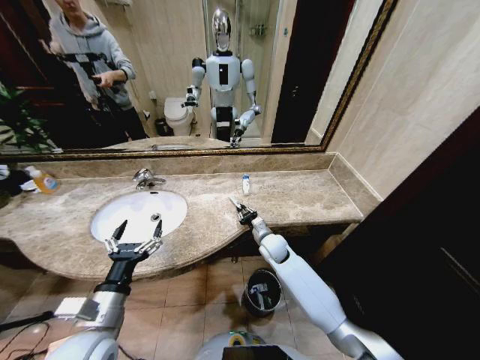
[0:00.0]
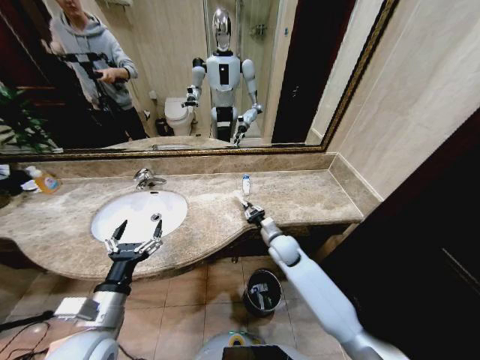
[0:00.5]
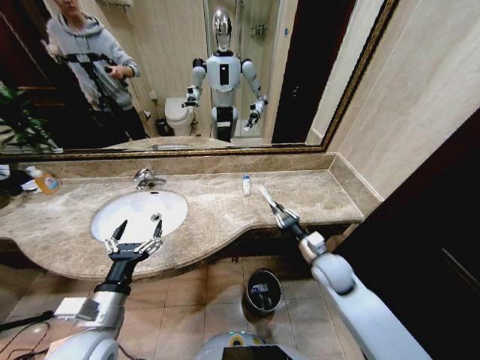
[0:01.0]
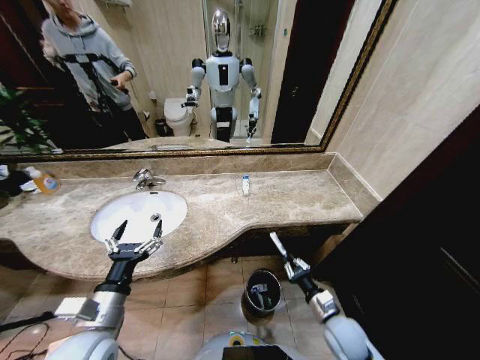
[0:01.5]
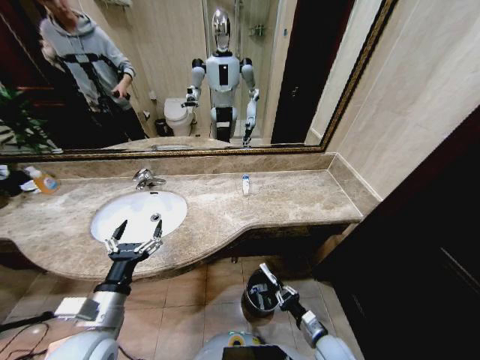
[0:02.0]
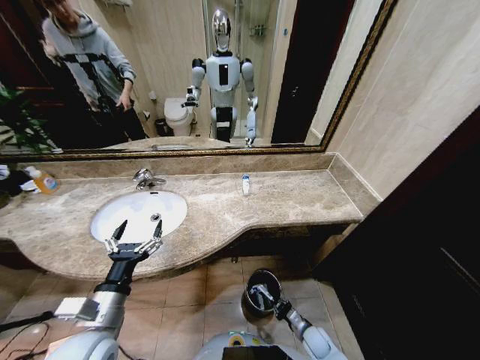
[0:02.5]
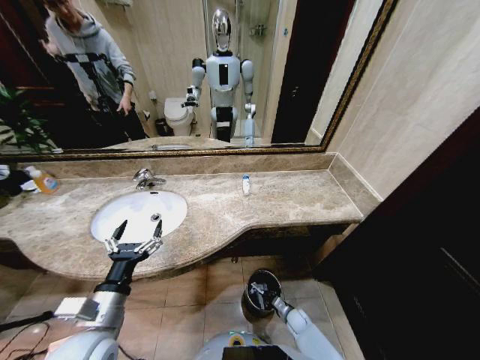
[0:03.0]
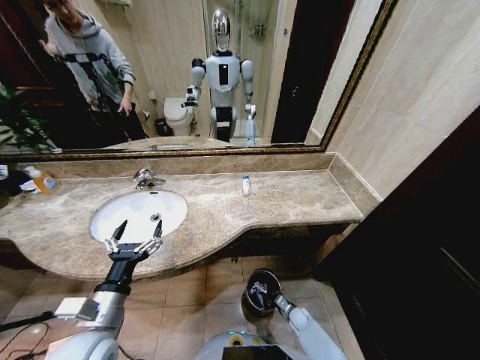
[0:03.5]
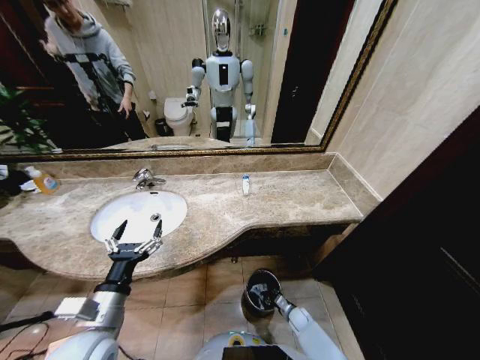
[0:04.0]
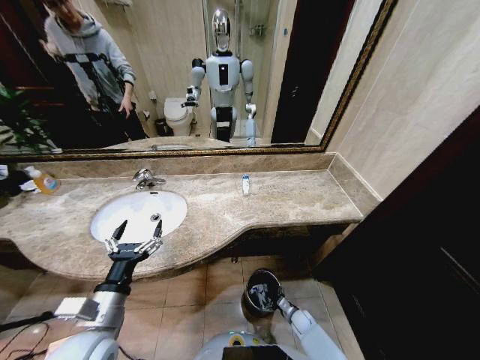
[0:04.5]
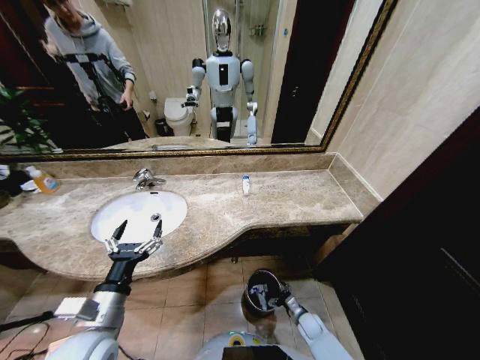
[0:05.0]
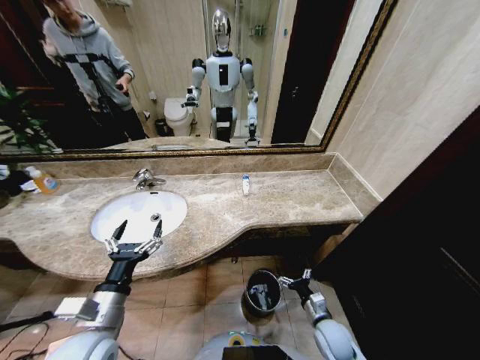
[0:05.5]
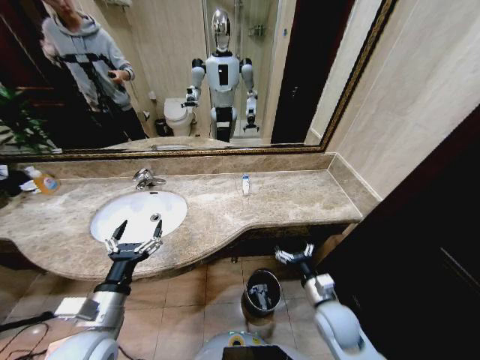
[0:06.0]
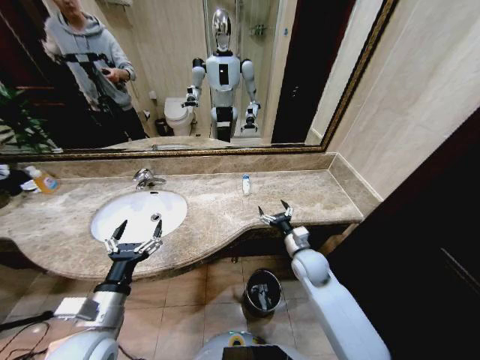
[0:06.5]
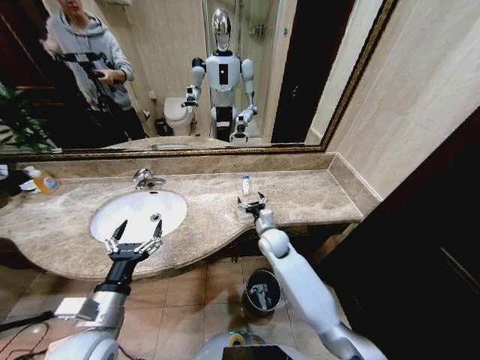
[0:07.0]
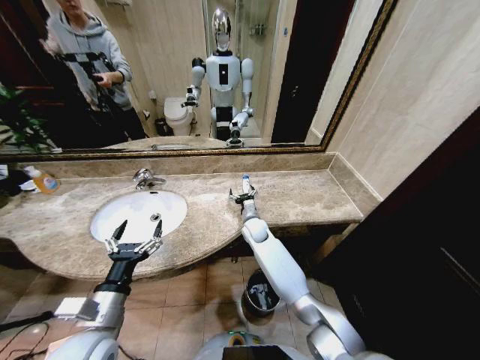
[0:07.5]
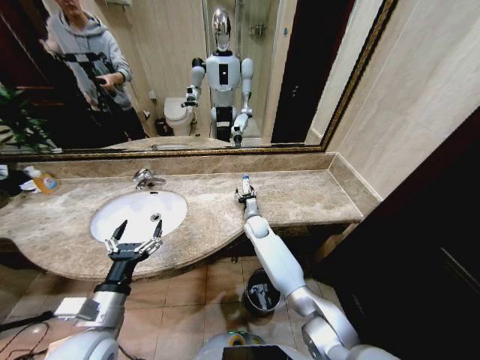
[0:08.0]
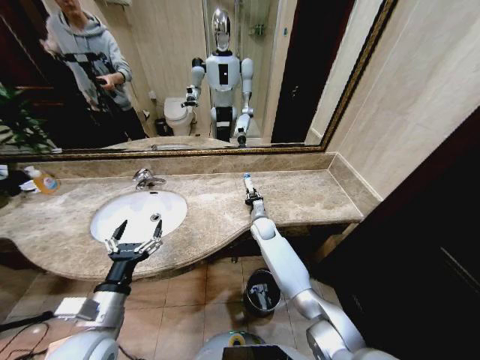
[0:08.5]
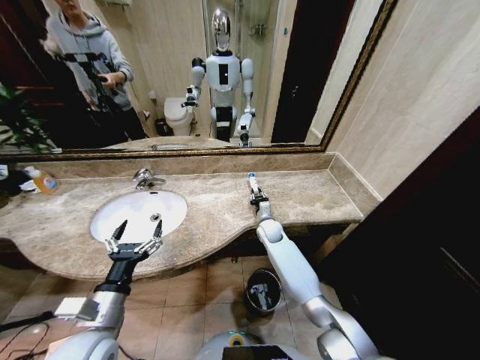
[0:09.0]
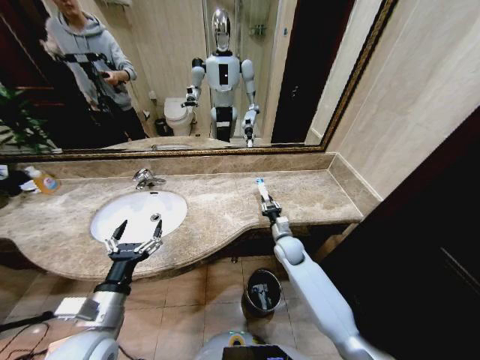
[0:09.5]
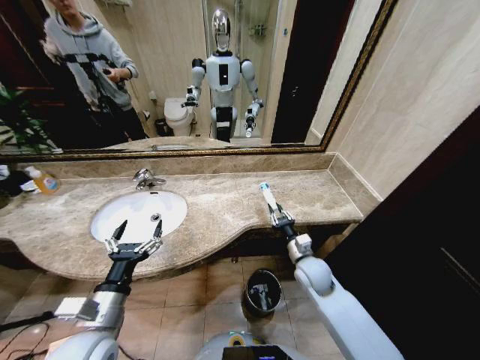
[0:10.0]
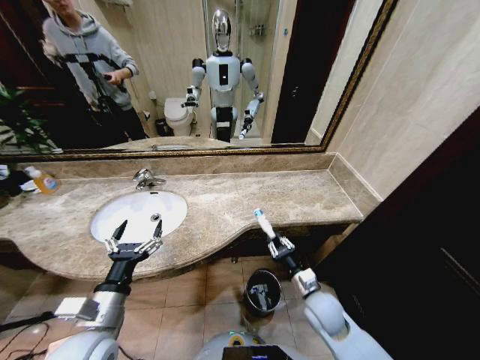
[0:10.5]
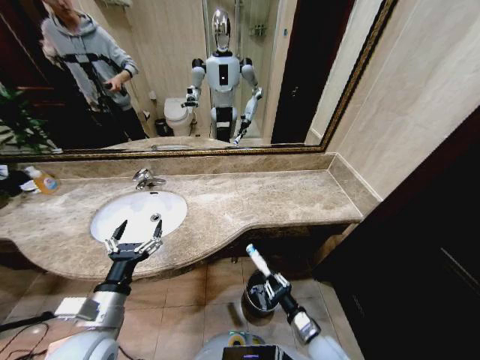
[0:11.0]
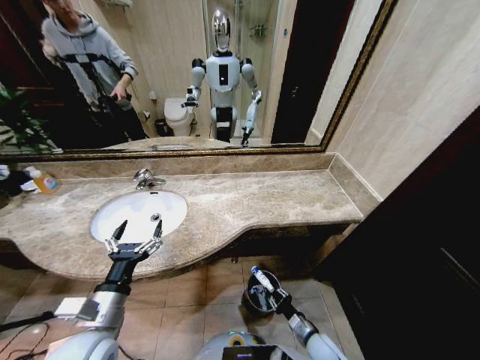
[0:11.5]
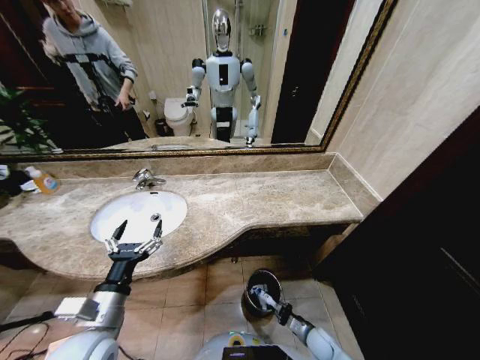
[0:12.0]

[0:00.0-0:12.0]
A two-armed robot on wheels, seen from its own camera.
Task of the whole recording: Pick up the trash from the sink and place it in the trash bin.
0:00.0 to 0:02.0: The right gripper shifts some 35 cm backward, to the right and downward.
0:02.0 to 0:04.0: The right gripper heads downward and forward, covering some 20 cm.
0:04.0 to 0:06.0: The right gripper goes about 30 cm upward, and opens its fingers.
0:06.0 to 0:08.0: The right gripper goes approximately 35 cm forward and to the left.
0:08.0 to 0:10.0: The right gripper is displaced backward and to the right by roughly 25 cm, and closes up.
0:10.0 to 0:12.0: The right gripper goes approximately 30 cm downward and backward.

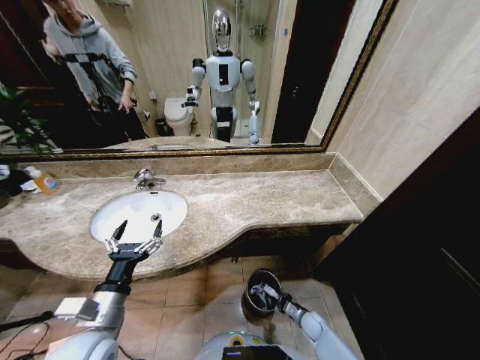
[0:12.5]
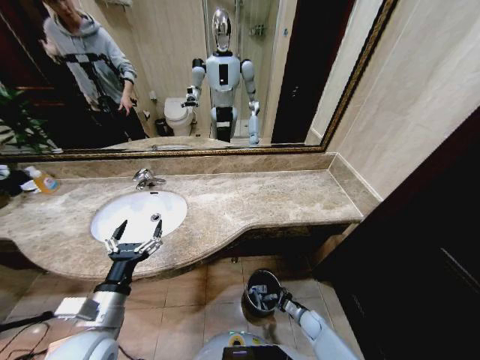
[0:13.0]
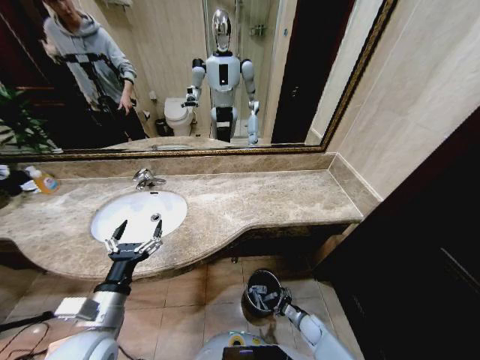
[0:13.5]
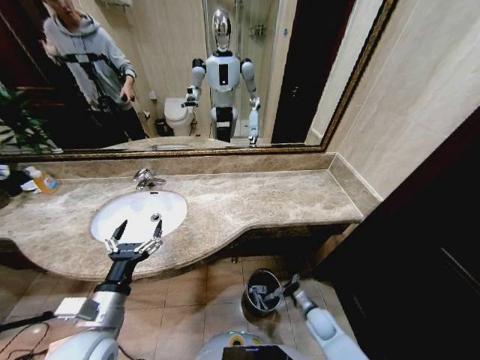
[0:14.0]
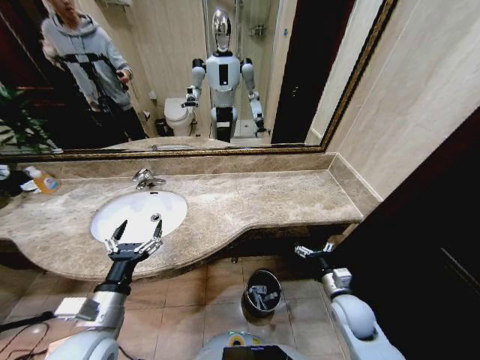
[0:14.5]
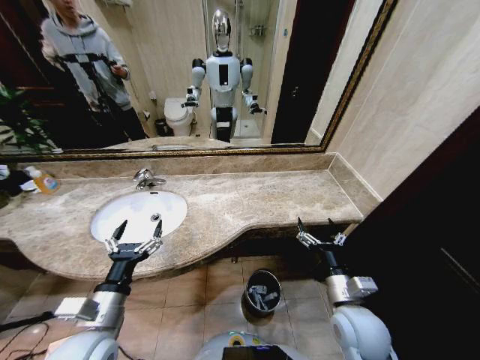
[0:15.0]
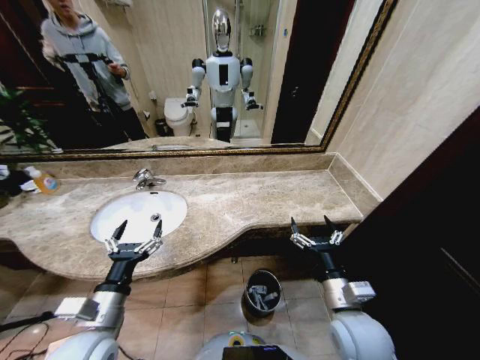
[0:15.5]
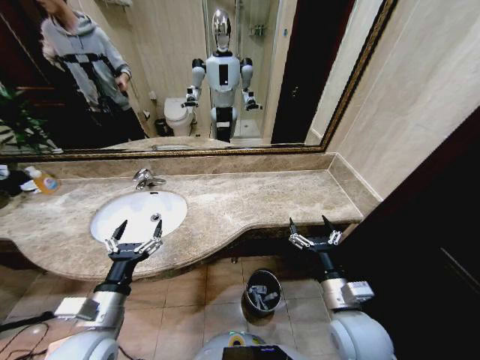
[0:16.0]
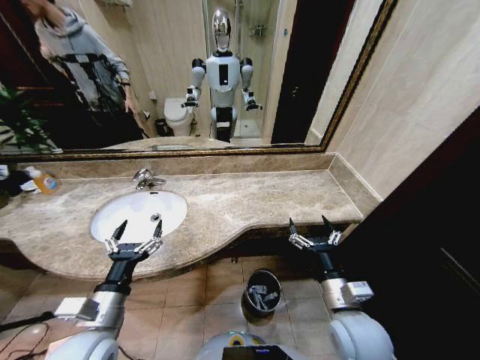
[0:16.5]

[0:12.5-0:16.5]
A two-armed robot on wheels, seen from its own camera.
Task of the whole recording: Pick up the trash from the sink and place it in the trash bin.
0:12.5 to 0:14.5: The right gripper goes approximately 25 cm upward, and opens.
0:14.5 to 0:16.5: The right gripper shifts about 15 cm upward, to the left and backward.

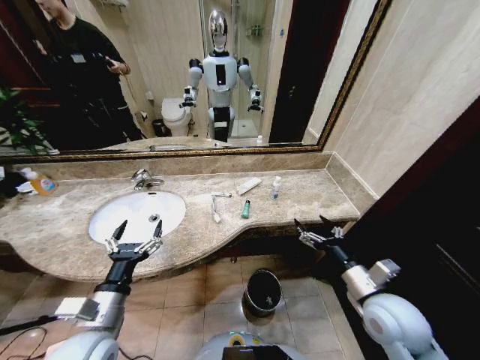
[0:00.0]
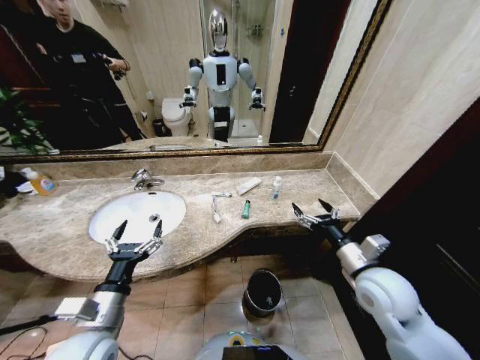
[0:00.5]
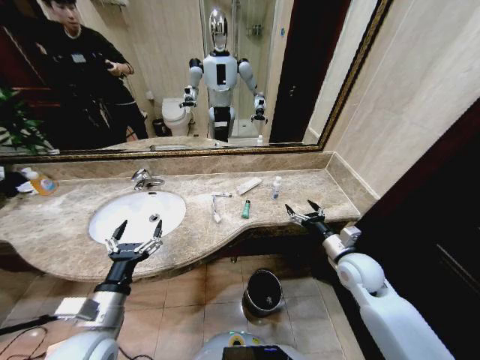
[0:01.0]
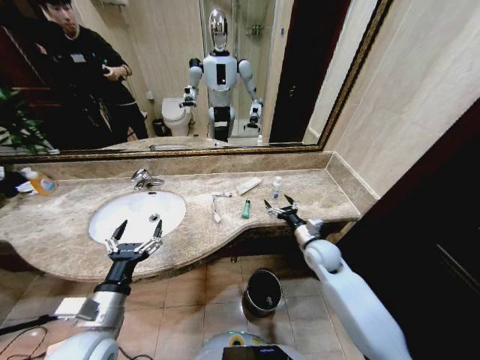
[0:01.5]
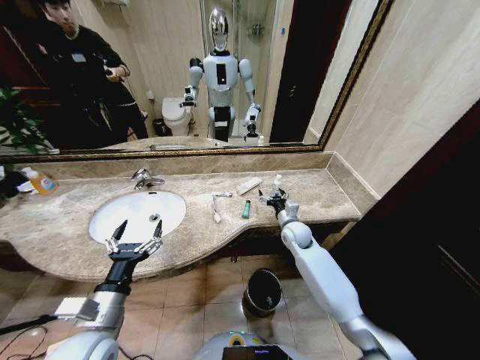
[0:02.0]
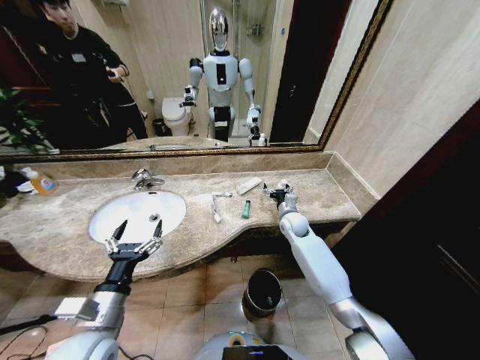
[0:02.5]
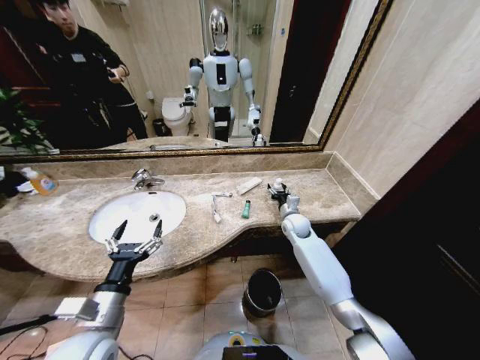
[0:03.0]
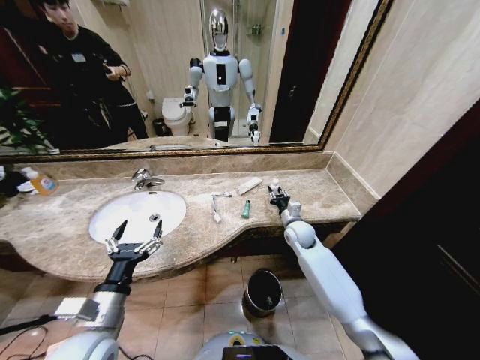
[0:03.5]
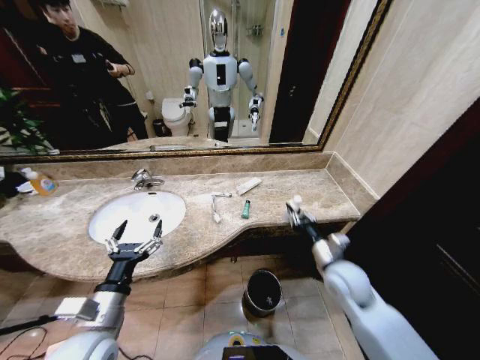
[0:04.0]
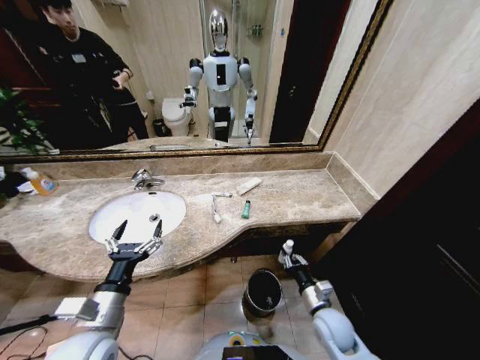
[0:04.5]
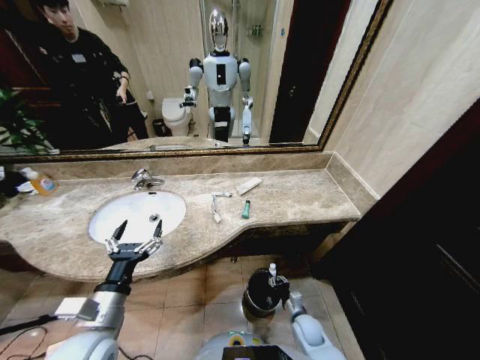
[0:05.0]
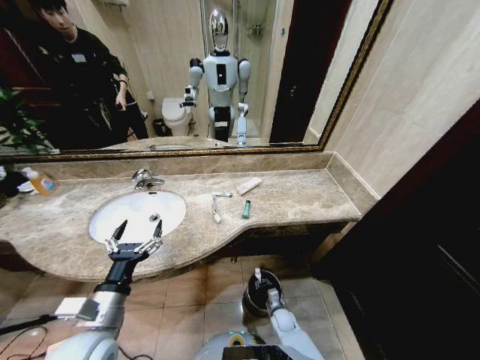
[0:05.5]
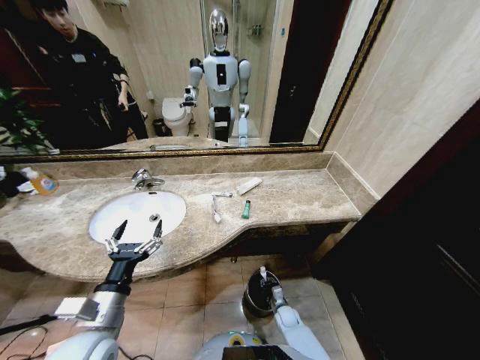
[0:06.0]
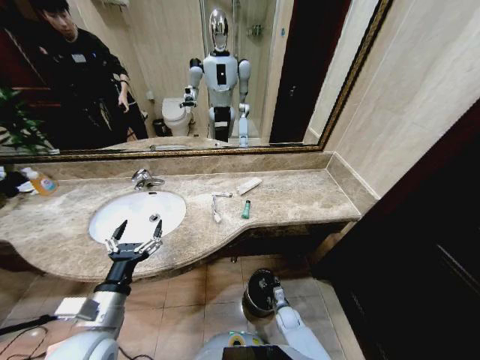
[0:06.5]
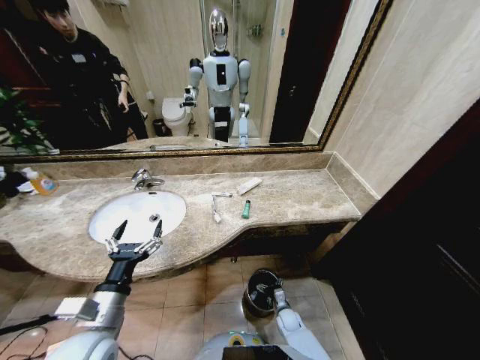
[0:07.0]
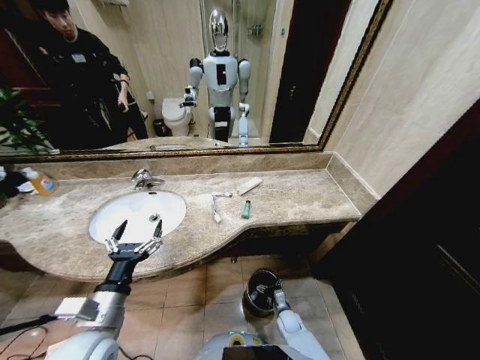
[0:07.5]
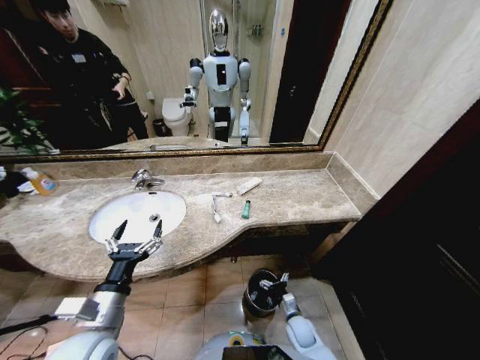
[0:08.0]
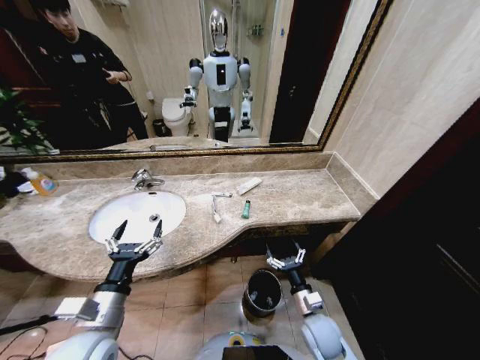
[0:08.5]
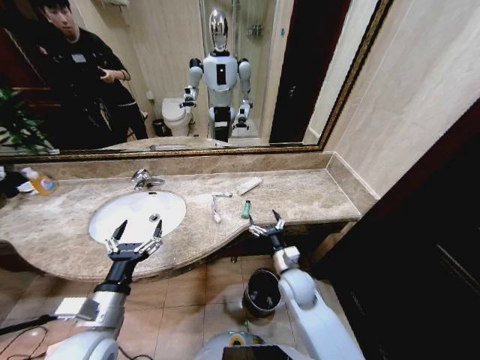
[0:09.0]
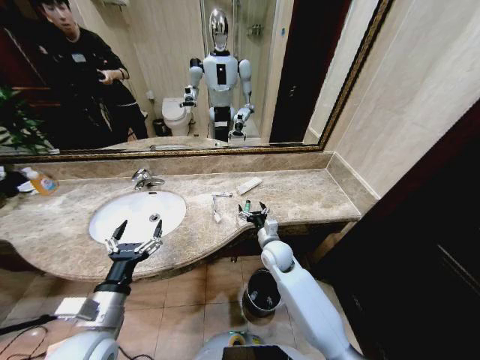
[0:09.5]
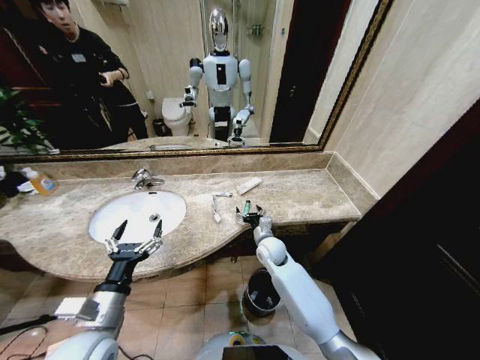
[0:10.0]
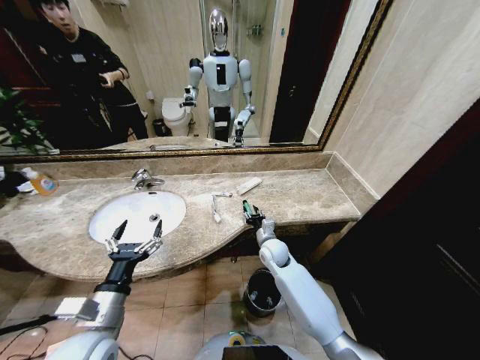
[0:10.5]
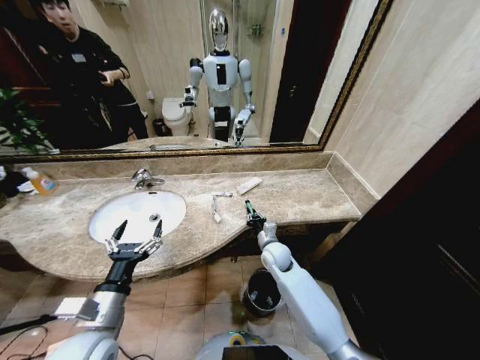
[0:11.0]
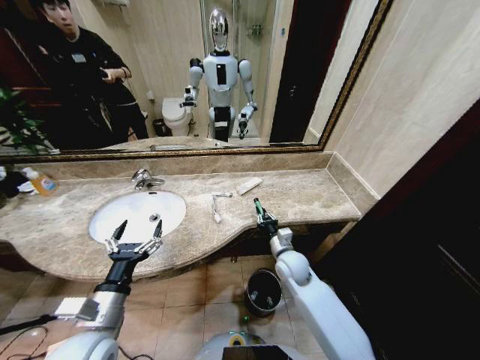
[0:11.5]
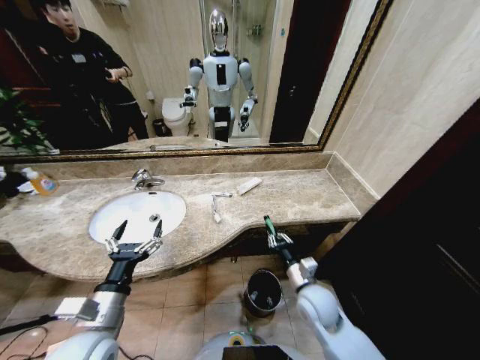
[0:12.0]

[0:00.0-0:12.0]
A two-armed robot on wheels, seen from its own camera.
Task of the whole recording: Pick up the trash from the sink and place it in the trash bin.
0:02.0 to 0:04.0: The right gripper heads backward, covering about 15 cm, and closes its fingers.
0:04.0 to 0:06.0: The right gripper goes about 35 cm downward.
0:06.0 to 0:08.0: The right gripper travels upward by roughly 10 cm, and opens up.
0:08.0 to 0:10.0: The right gripper shifts approximately 30 cm upward, forward and to the left.
0:10.0 to 0:12.0: The right gripper travels backward and to the right by approximately 20 cm, and closes.
